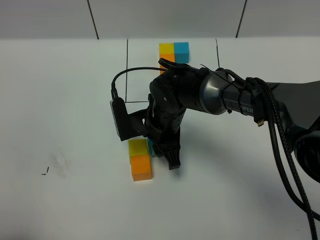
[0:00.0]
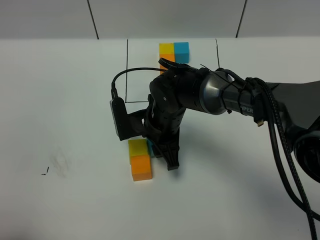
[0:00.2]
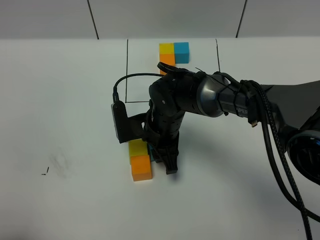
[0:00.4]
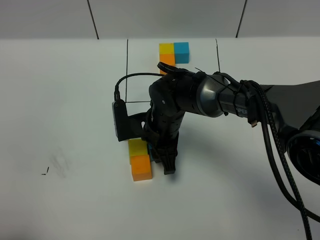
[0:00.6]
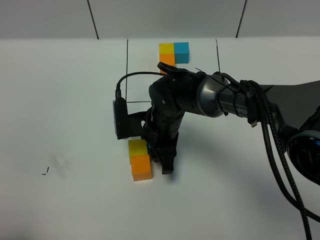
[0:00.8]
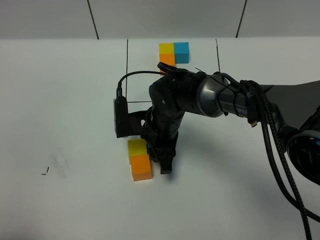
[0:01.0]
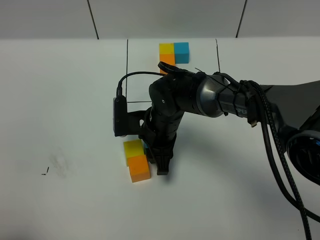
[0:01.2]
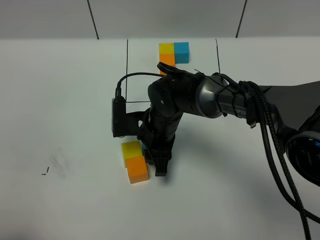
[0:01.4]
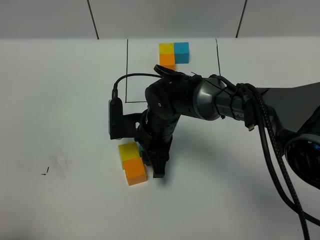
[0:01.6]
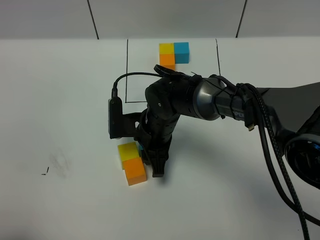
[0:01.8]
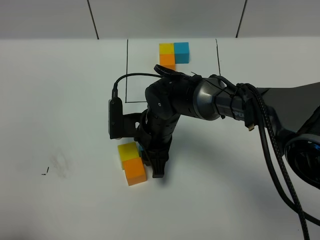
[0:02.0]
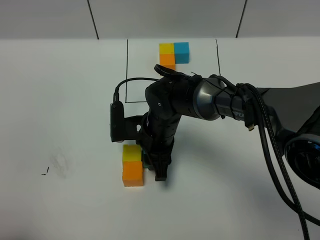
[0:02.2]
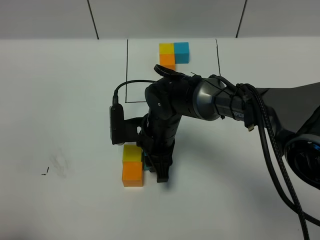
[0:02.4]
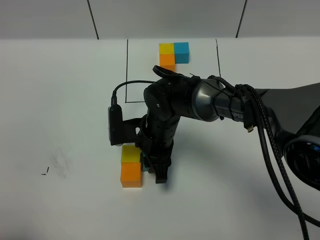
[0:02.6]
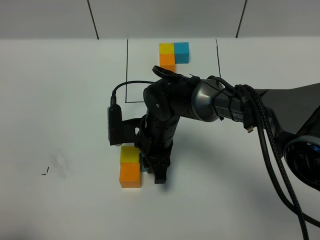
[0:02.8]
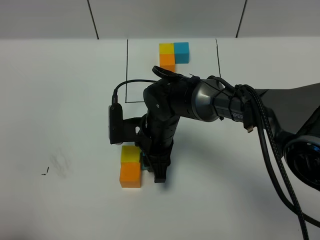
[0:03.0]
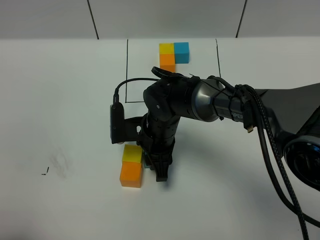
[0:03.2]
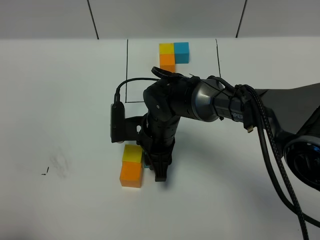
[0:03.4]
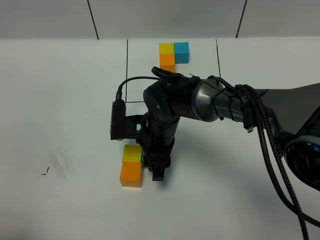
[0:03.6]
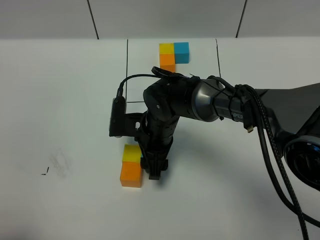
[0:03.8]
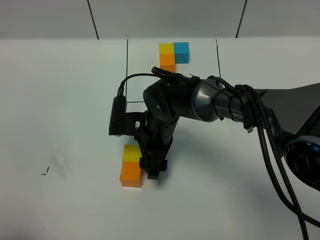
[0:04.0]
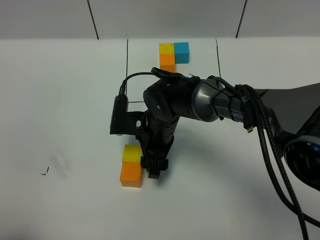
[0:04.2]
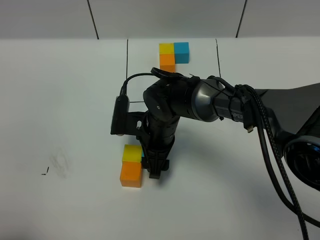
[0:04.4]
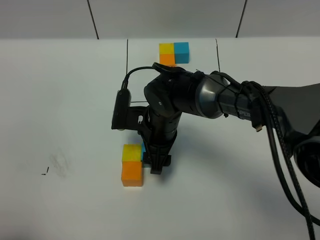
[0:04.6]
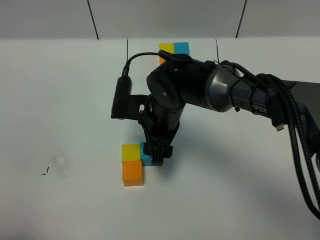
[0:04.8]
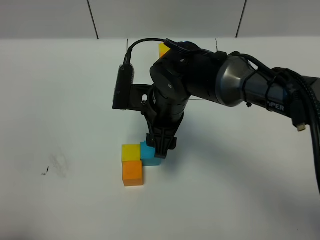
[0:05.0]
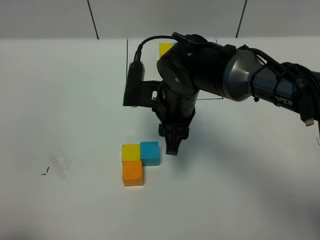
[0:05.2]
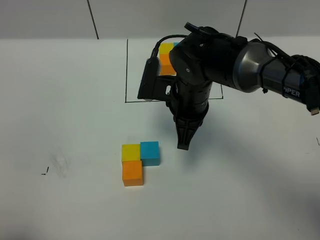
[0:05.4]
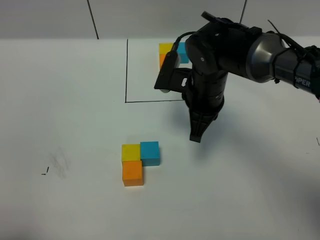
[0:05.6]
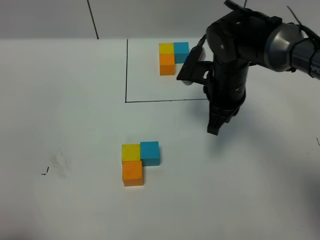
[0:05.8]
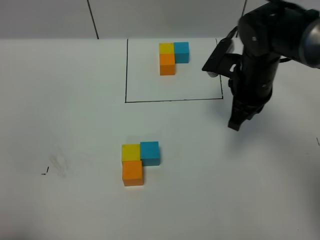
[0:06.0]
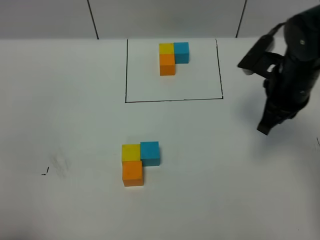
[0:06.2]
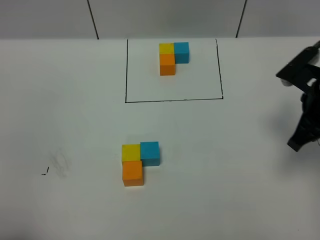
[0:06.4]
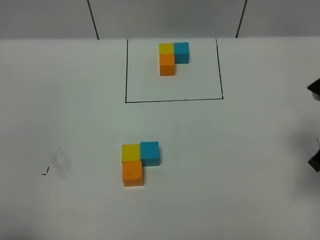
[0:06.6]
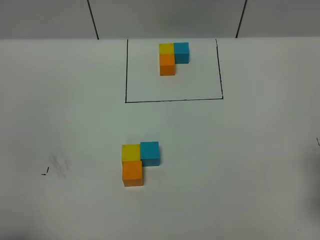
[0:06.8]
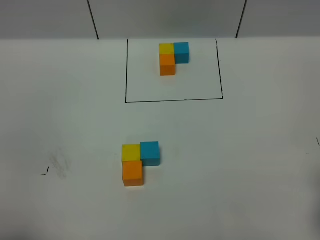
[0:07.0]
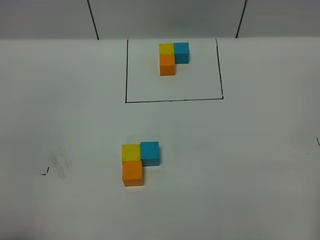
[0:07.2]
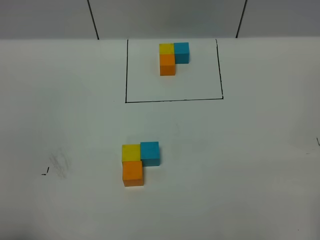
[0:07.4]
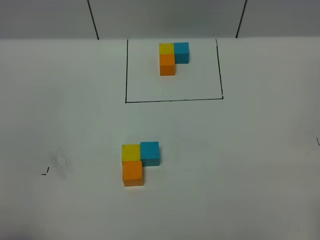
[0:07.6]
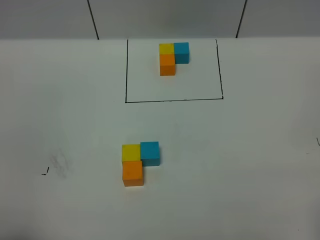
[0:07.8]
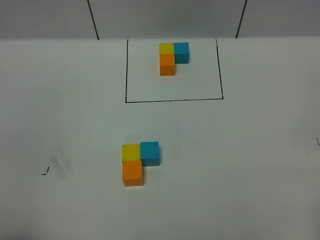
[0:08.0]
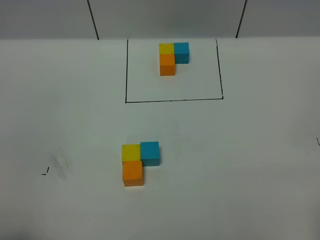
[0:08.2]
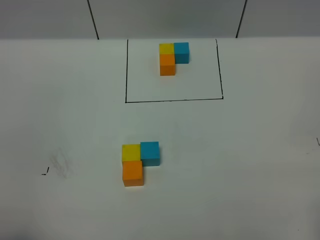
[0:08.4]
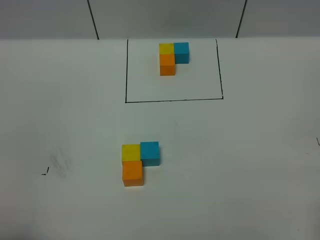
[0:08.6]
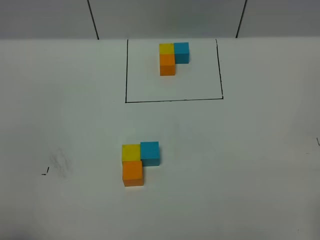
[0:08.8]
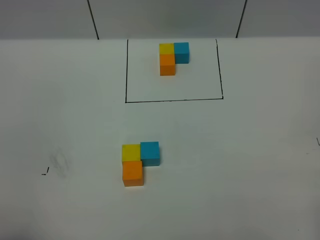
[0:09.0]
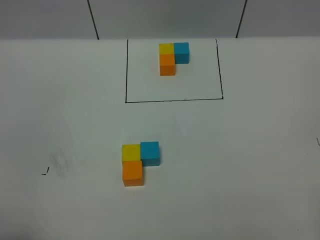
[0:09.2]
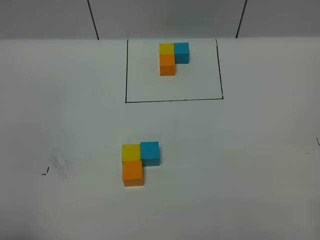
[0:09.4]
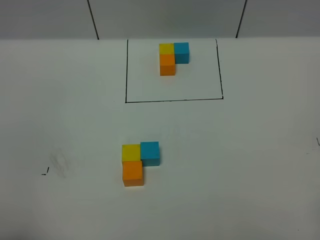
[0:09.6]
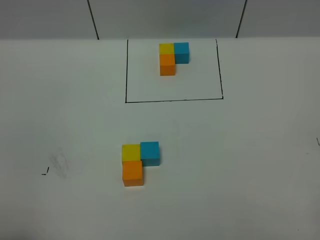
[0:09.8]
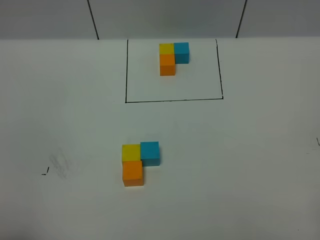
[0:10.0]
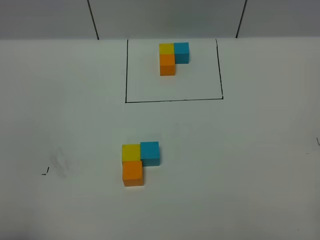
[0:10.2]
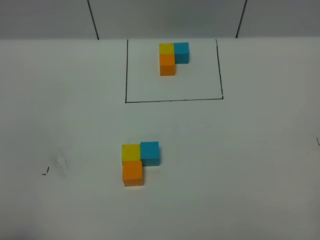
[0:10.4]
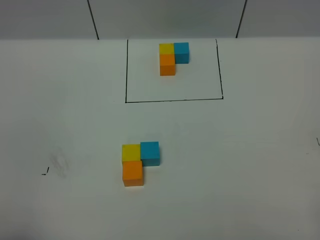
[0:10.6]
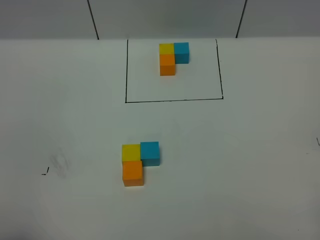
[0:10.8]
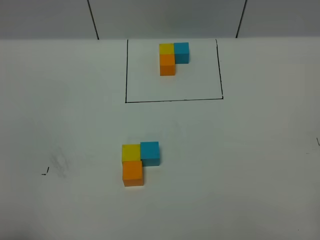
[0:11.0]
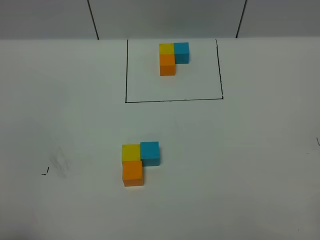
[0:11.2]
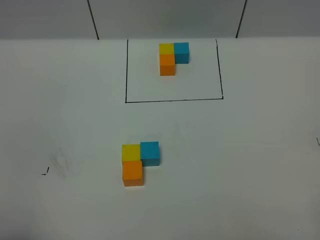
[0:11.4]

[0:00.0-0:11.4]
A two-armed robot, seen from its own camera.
Task of the whole recording: According to the building block template in front, assemble the scattered blocks together.
Step, 0:00.0 to 0:05.6: Put the blue cube on the right of the yellow cube.
0:00.0 to 0:01.4: The grippers stay close to where they were, moving slightly.
0:01.4 to 0:02.8: Both grippers stay about where they are.
0:02.8 to 0:04.2: The right gripper opens up.
0:04.2 to 0:05.6: The right gripper shifts about 10 cm to the right and upward, and closes.
0:05.6 to 0:07.2: The right gripper moves backward and to the right, about 35 cm.
0:10.0 to 0:11.4: Neither gripper changes place.

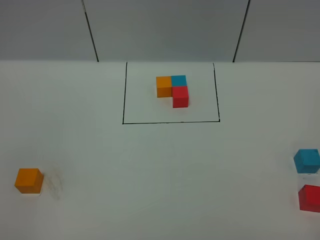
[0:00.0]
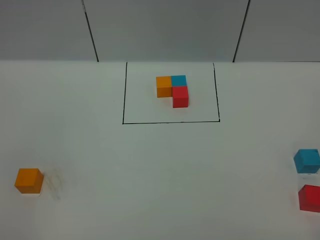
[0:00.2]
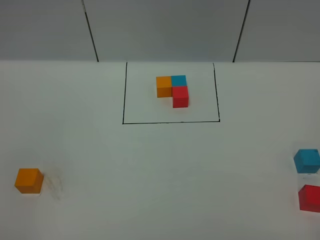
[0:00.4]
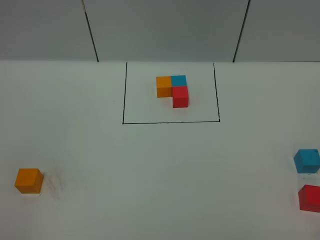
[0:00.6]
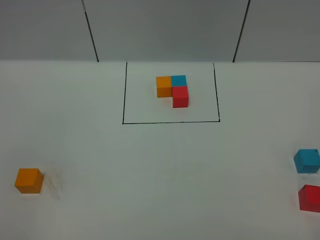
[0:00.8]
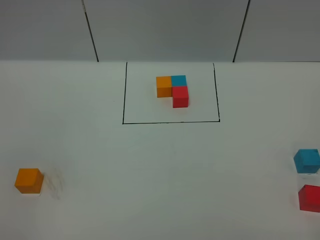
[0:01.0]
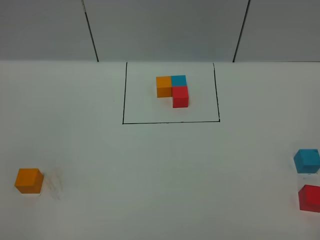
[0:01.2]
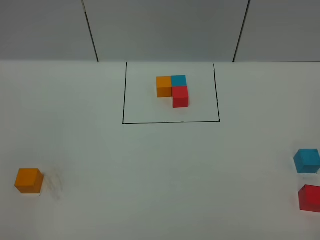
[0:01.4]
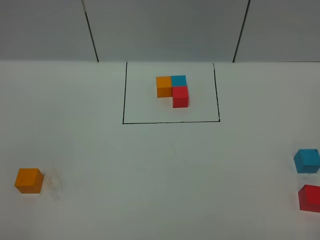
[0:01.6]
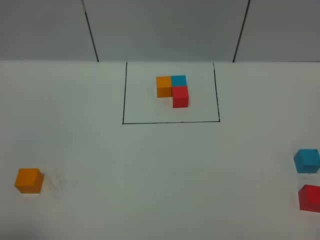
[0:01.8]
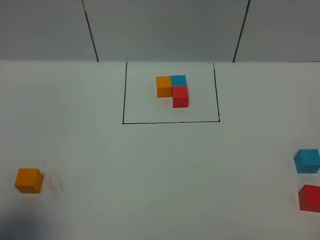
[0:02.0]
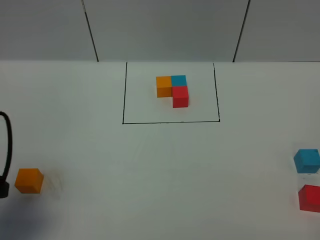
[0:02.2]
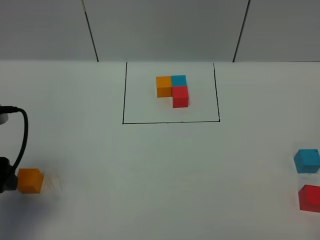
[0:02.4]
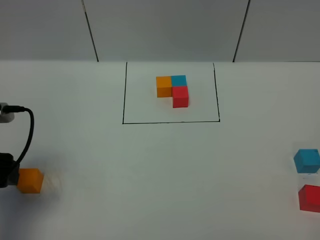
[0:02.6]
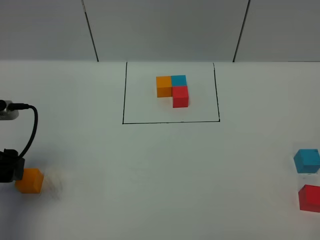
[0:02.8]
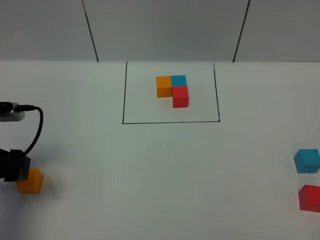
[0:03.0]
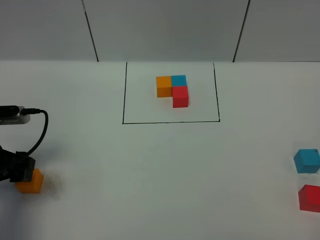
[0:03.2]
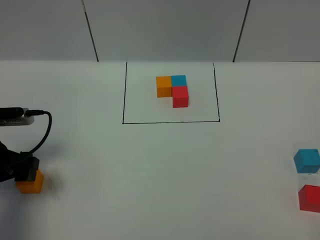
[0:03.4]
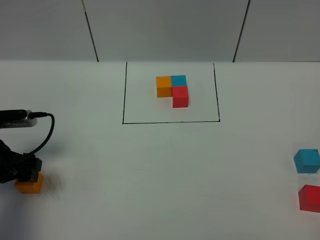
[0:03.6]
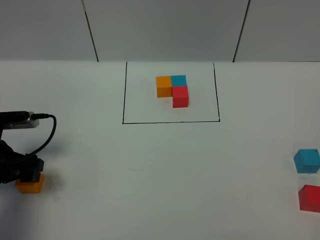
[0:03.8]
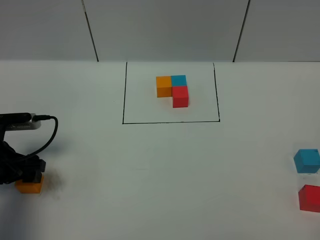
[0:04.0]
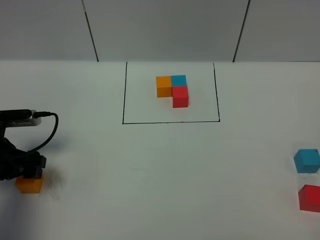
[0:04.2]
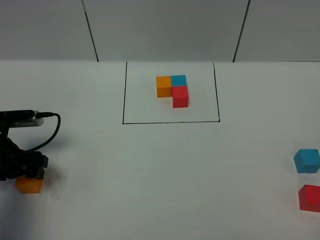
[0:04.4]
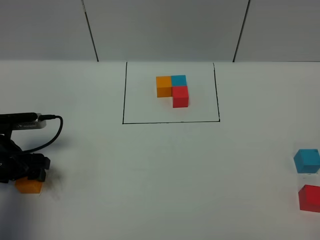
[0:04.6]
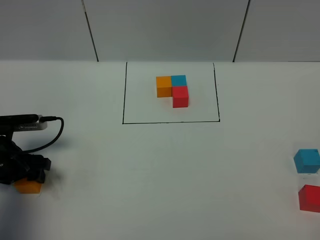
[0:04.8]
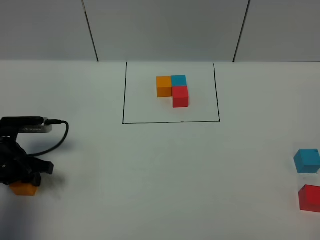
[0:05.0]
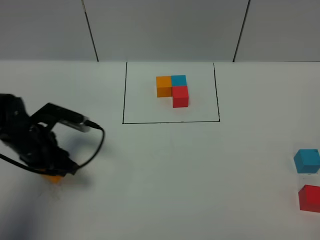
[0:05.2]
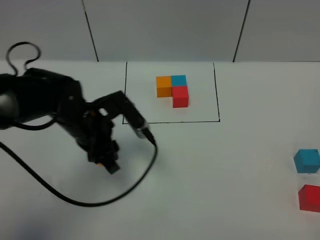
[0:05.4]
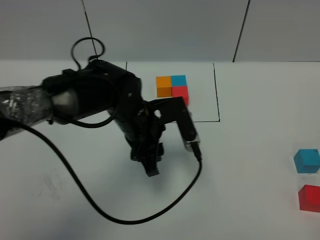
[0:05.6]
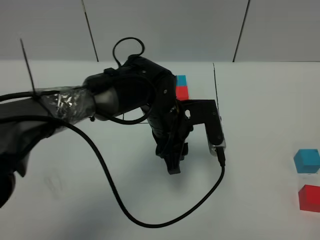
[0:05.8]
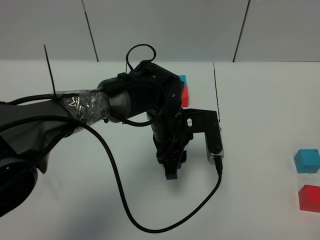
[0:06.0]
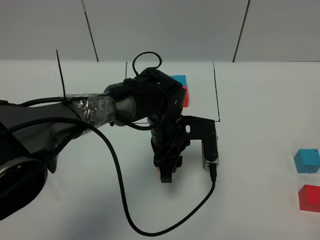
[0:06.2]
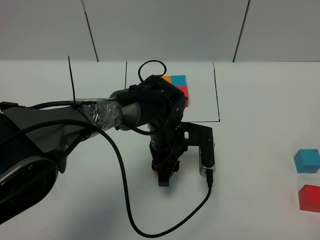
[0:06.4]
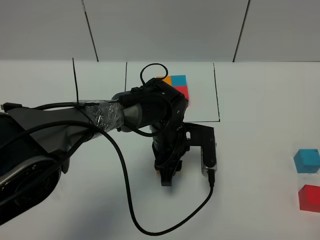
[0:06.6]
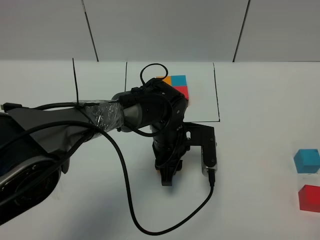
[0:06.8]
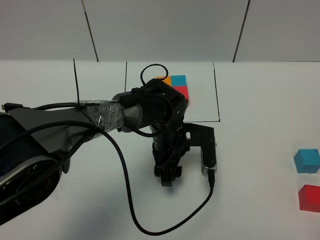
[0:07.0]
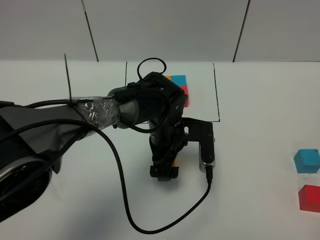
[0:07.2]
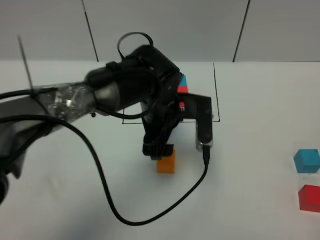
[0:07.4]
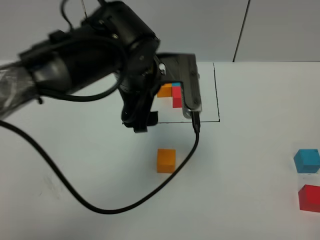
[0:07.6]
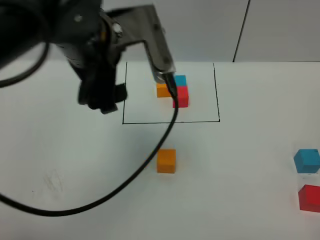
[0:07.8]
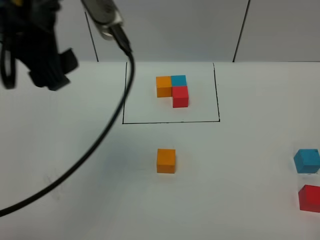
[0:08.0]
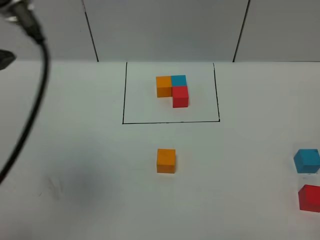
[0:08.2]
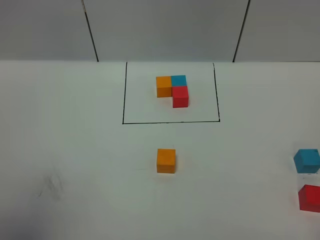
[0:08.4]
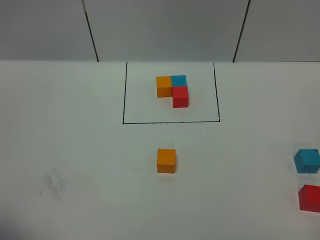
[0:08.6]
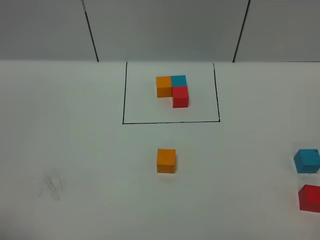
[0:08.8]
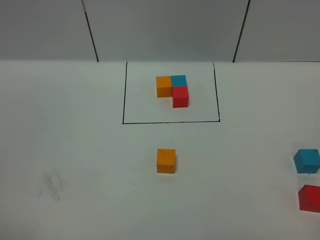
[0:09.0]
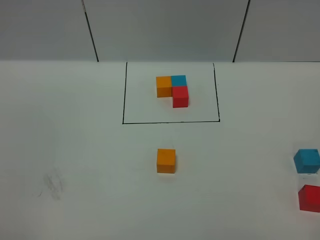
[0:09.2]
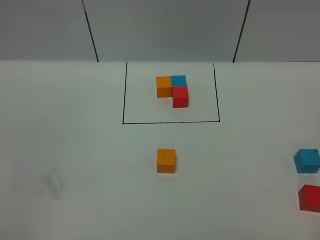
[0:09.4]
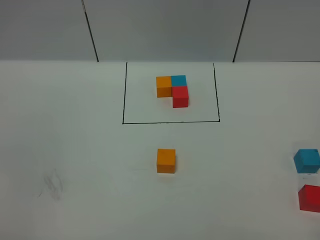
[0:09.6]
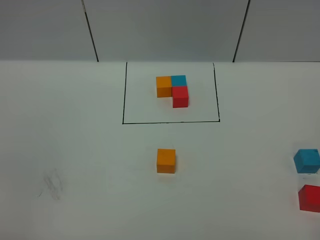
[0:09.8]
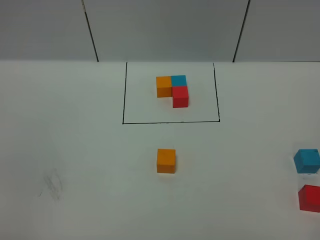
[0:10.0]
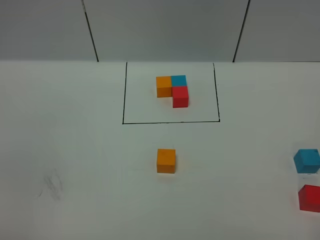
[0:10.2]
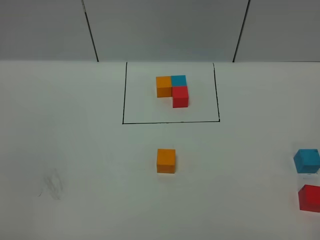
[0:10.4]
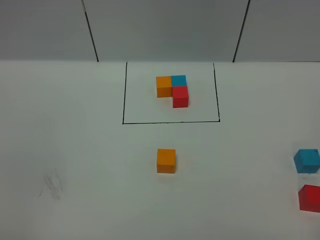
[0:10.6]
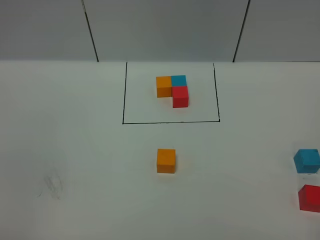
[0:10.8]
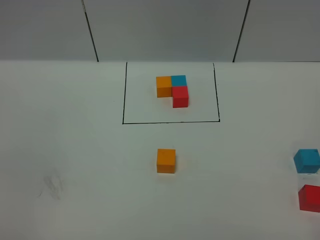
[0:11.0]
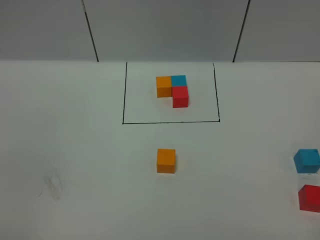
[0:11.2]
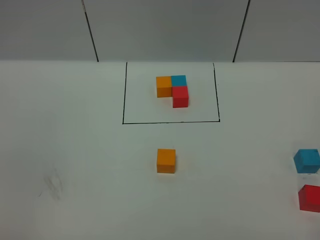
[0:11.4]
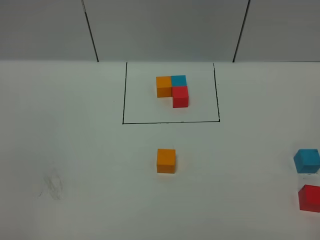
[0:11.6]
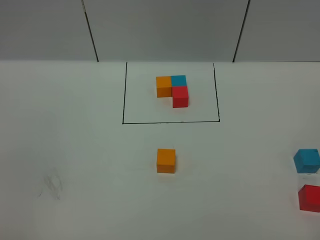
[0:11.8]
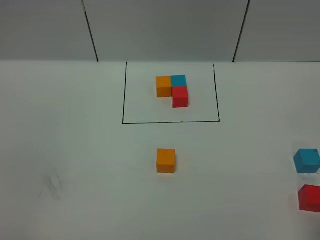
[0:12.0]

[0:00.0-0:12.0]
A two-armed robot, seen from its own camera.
Task of the whole recording: According to the building block template in front, assemble the scattered blocks together.
Step, 0:02.0 to 0:07.2: Put the orange cube in the center of the table.
0:01.6 to 0:03.0: The left gripper is displaced forward by about 25 cm.
0:03.0 to 0:04.4: The left gripper is displaced downward by roughly 5 cm.
0:04.4 to 0:06.0: The left gripper goes roughly 30 cm to the right, and closes its fingers.
0:06.0 to 0:07.6: The left gripper moves upward, about 15 cm, and opens its fingers.
0:07.6 to 0:09.0: The left gripper goes roughly 40 cm backward and to the left.
